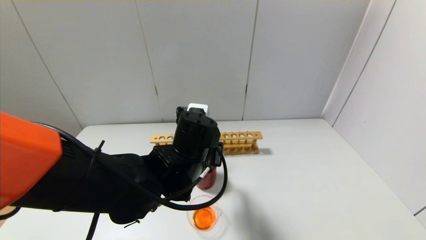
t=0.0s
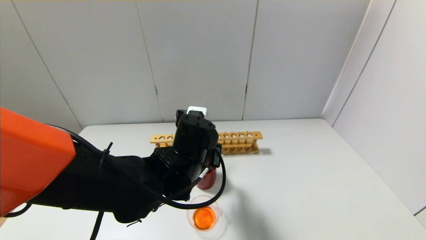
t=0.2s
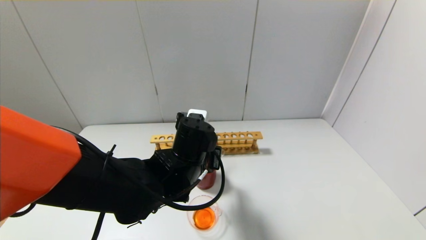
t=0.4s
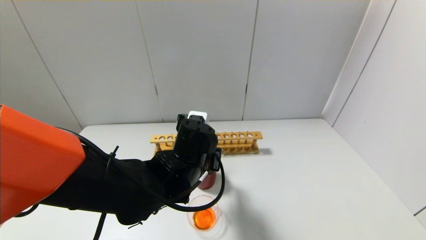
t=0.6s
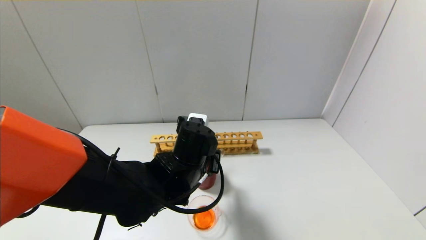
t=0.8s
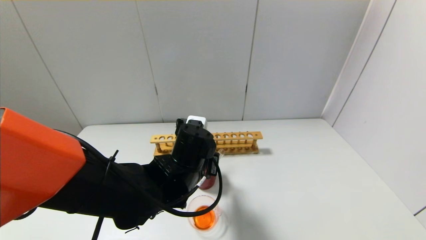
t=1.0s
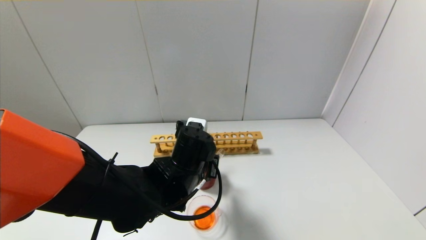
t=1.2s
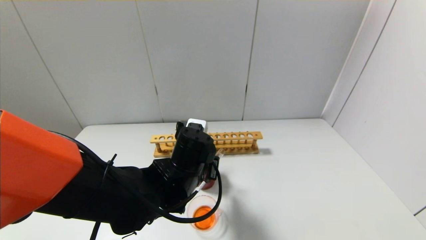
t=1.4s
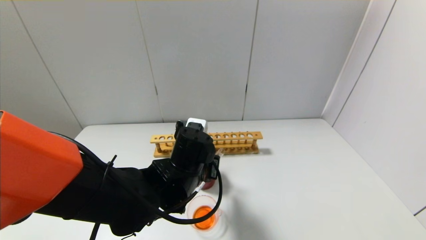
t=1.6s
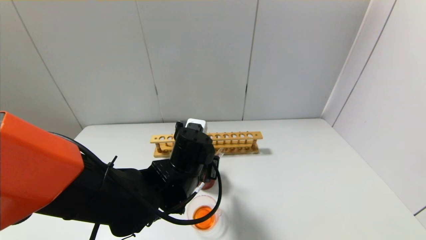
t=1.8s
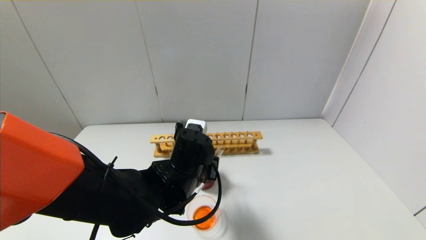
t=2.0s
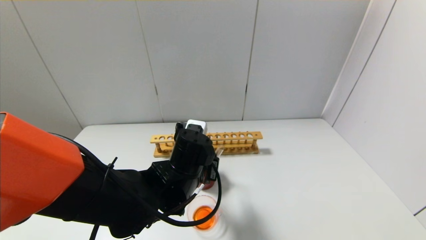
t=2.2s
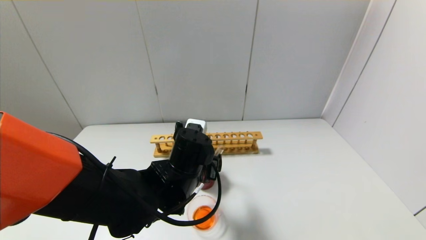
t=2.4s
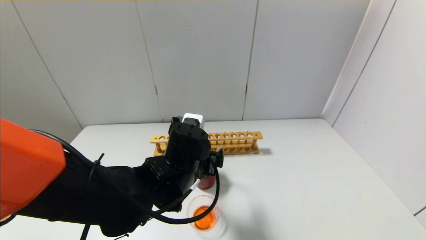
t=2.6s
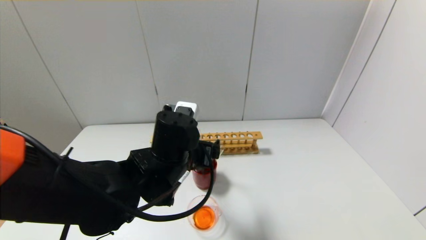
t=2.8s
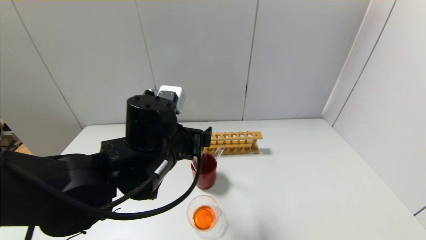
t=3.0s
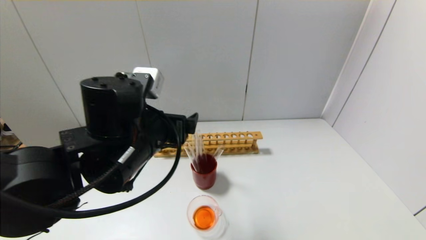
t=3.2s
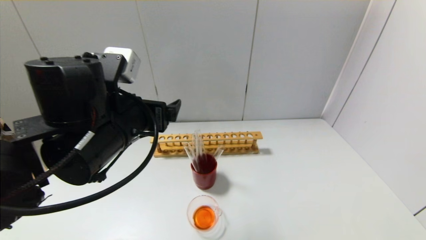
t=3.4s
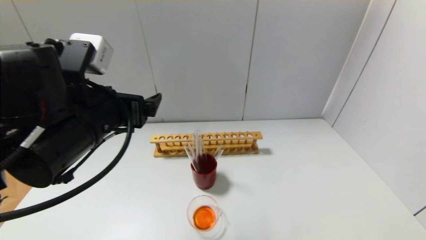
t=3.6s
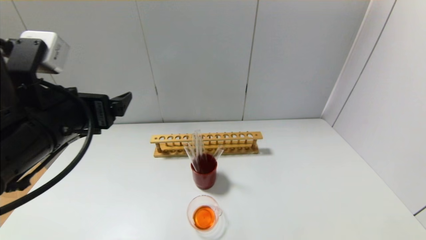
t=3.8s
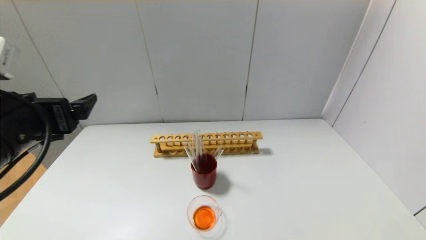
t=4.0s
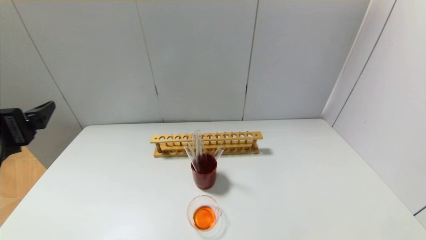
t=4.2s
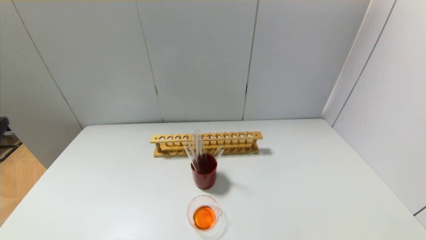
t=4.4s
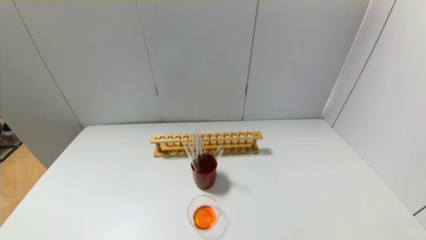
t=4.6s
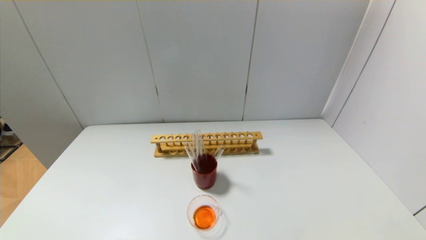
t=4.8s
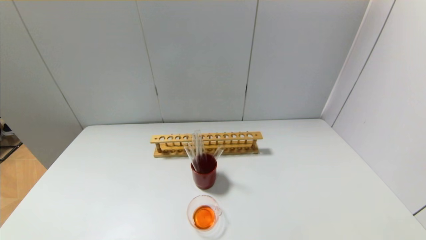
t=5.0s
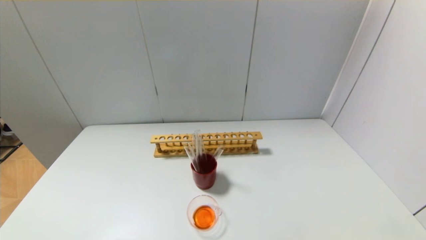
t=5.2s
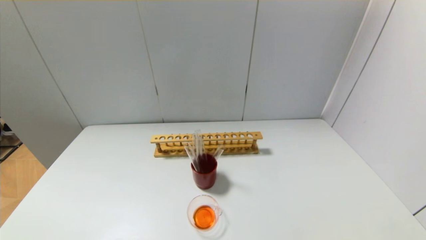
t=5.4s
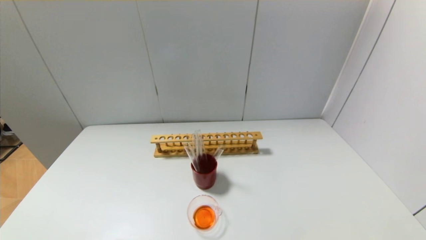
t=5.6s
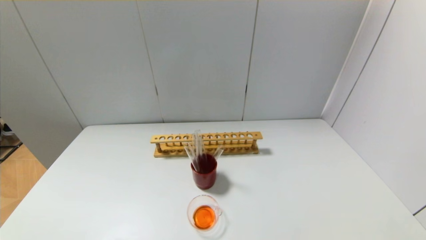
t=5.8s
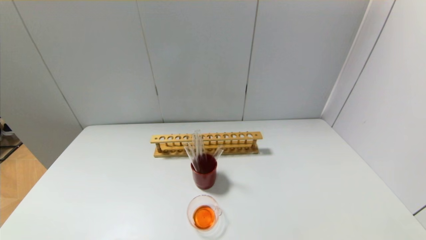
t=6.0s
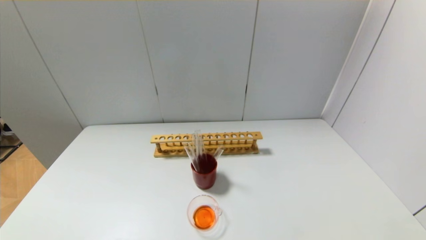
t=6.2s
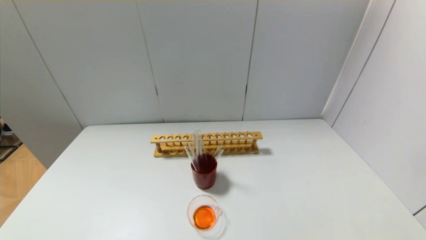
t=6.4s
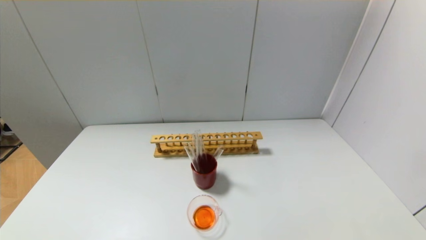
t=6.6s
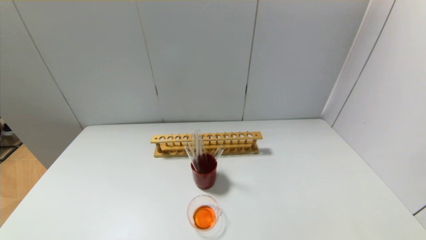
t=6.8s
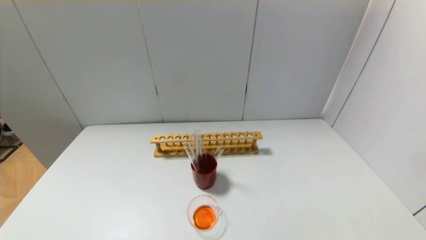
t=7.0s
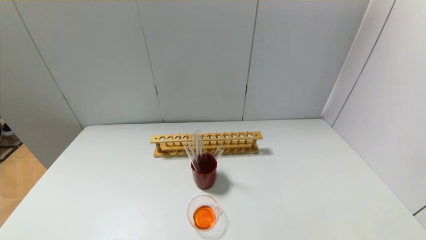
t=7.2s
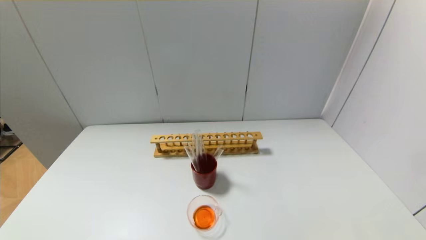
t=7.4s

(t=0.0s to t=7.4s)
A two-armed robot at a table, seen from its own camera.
Step, t=0.0s - t=2.0s: Place the test tube into the brown cup with the left gripper.
t=0.0s - t=1.4s: The grippers move only a little.
t=1.4s - t=3.0s: The left gripper shifts roughly 10 cm upward, and opens.
t=3.0s - t=4.4s: The left gripper travels to the left and backward by some 25 cm.
t=6.0s - t=7.4s: Both grippers stay put.
